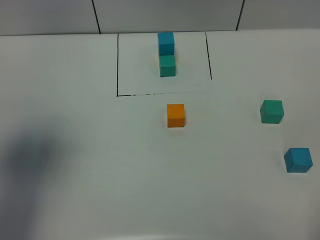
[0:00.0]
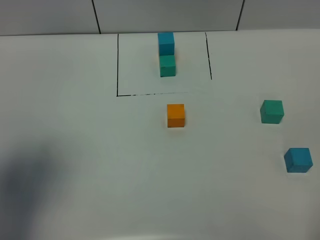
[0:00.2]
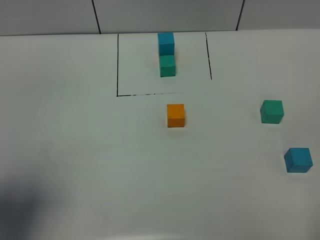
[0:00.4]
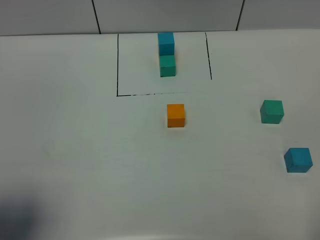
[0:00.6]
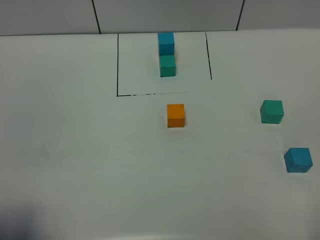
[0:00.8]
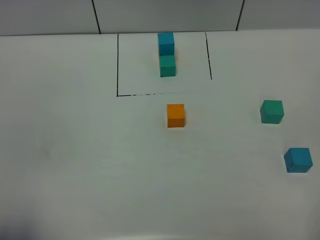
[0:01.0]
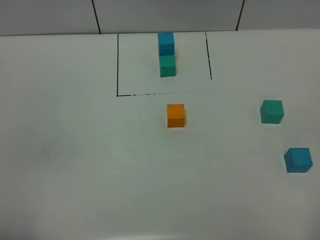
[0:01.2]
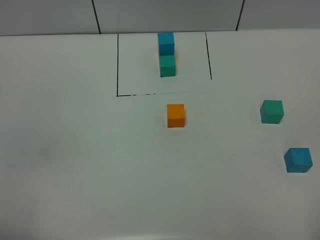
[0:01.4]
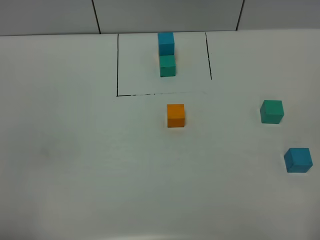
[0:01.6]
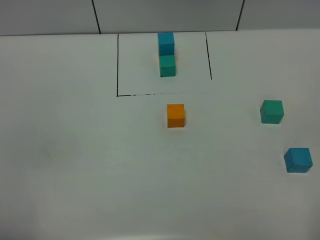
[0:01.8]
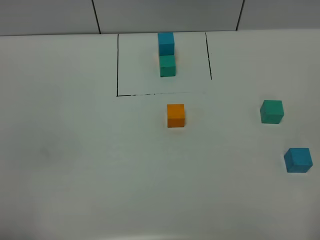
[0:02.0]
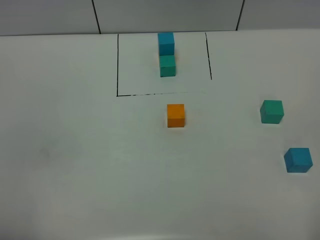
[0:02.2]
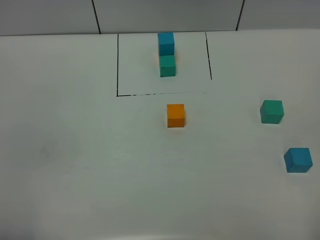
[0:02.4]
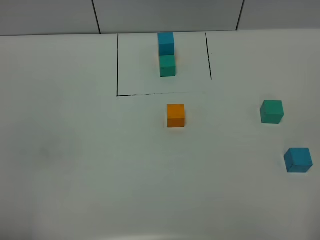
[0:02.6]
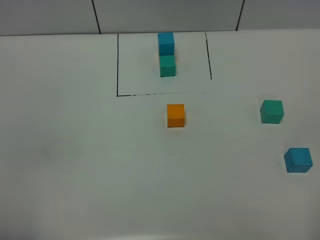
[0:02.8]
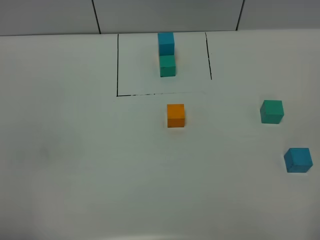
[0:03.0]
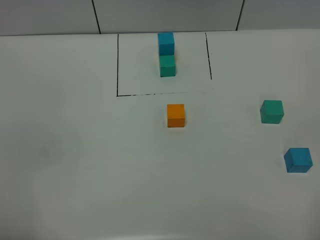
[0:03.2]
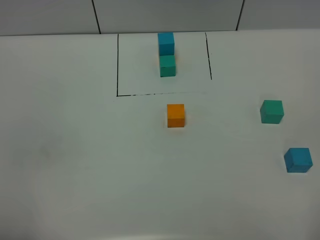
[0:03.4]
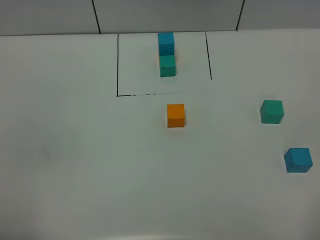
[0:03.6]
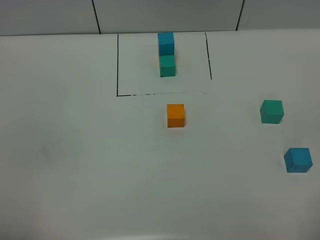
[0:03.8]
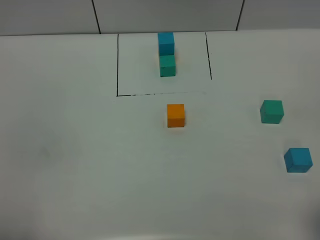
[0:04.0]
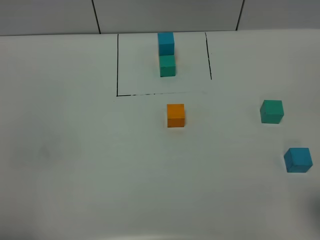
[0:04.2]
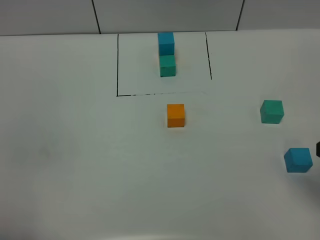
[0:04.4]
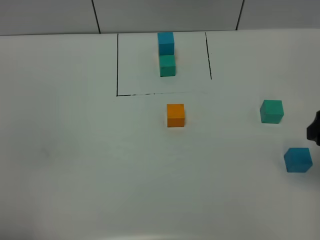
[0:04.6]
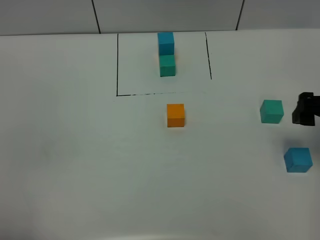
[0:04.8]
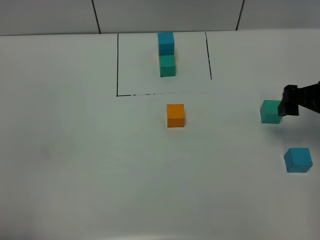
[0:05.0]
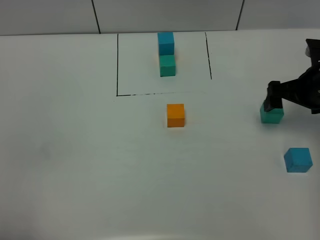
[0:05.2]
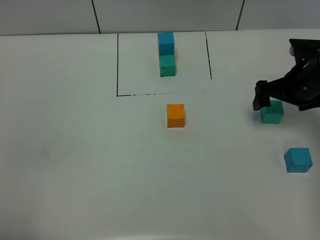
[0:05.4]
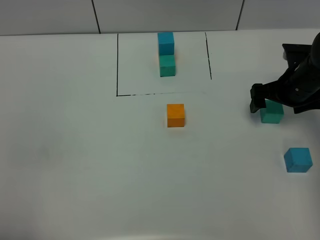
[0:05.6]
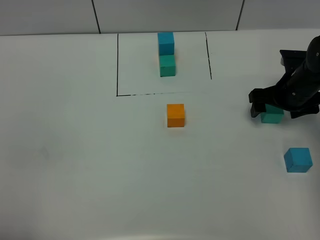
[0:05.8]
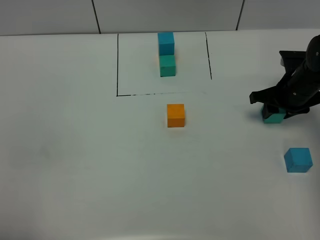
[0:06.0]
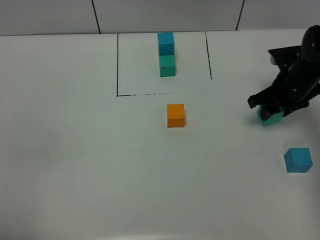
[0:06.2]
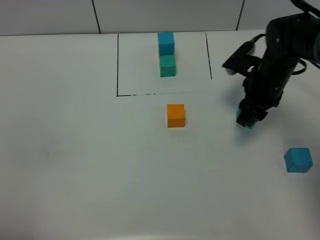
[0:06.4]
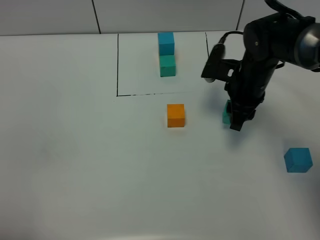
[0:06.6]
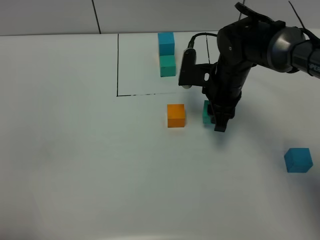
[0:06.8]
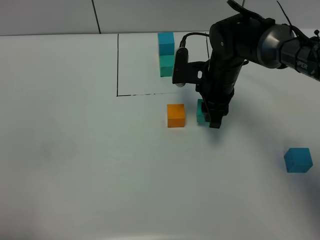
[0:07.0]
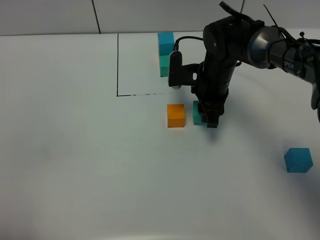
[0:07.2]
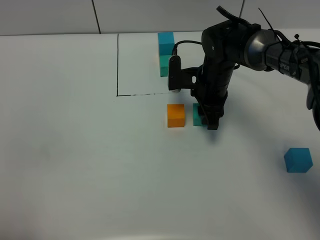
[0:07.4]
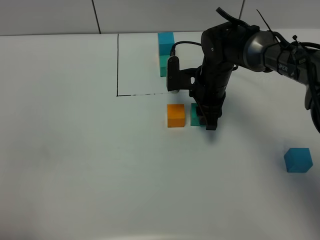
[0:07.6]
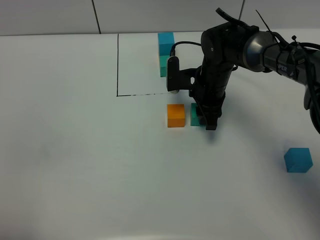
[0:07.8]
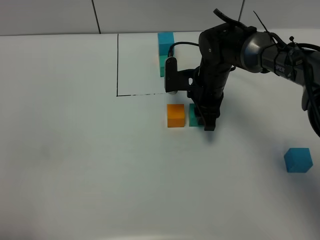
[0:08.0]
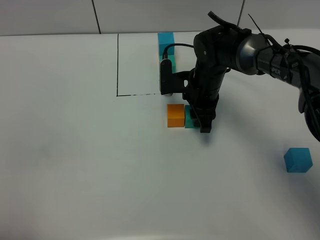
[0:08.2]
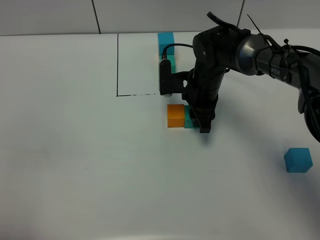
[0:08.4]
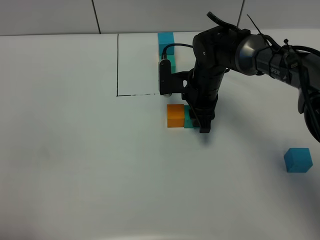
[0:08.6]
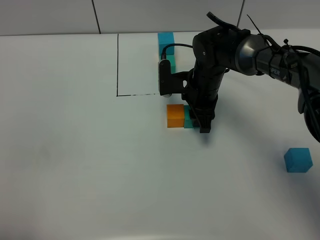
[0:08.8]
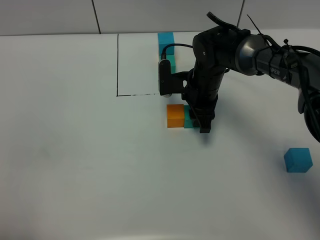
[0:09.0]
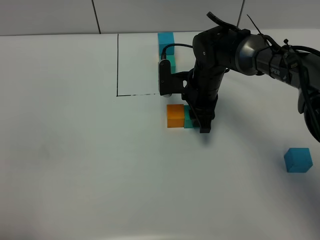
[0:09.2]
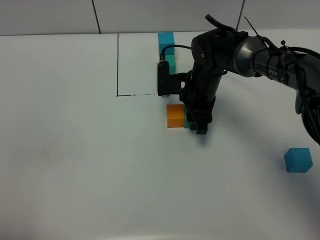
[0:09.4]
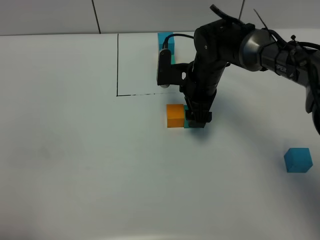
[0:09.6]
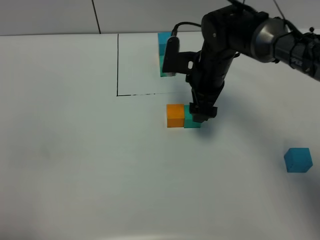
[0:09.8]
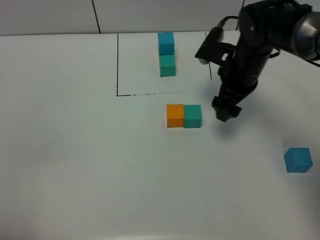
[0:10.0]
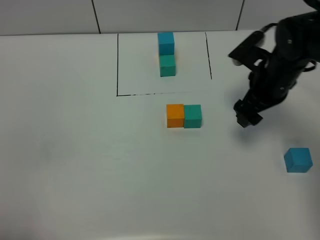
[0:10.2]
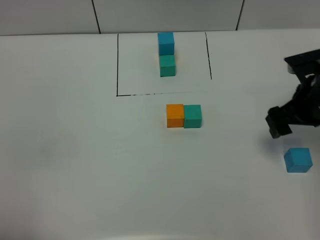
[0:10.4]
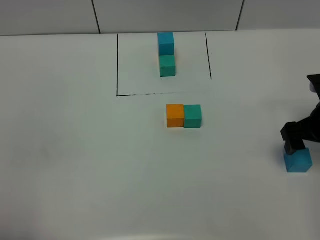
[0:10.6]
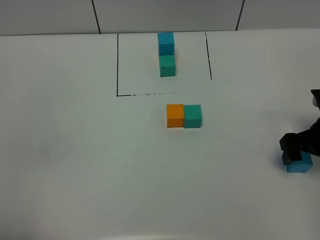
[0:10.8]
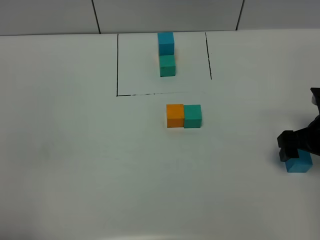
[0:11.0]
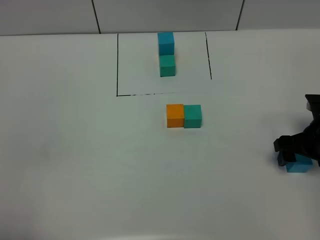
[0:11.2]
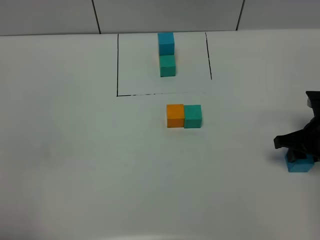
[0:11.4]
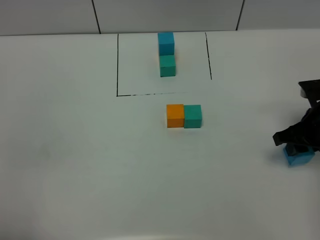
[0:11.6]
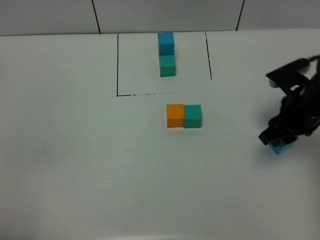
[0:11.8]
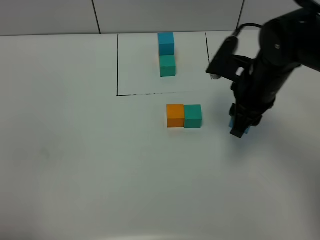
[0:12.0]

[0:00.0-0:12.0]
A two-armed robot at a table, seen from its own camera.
Task of the whole recording: According to the building block template in front, assemble the scattered blocks together.
Step, 0:00.0 to 0:09.6: Put the green build block on the right of the orange build block.
0:00.0 to 0:01.6: The left gripper shifts approximately 20 cm backward.
0:01.6 to 0:03.0: Neither gripper changes place.
0:03.0 to 0:04.4: The right gripper moves forward, roughly 15 cm, and opens.
0:04.4 to 0:06.0: The right gripper shifts approximately 25 cm forward and downward, and closes.
0:06.0 to 0:07.6: The right gripper is displaced to the left by some 15 cm.
0:07.6 to 0:09.0: There are only small adjustments of the grippers.
0:09.0 to 0:10.4: The right gripper moves to the right and backward, approximately 20 cm, and opens.
0:10.4 to 0:12.0: The right gripper travels to the left by about 15 cm, and closes its fingers.

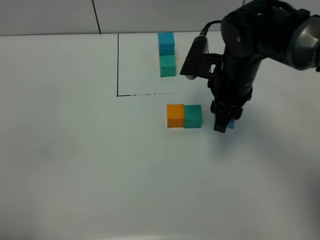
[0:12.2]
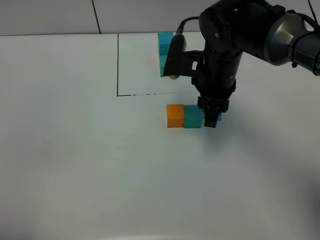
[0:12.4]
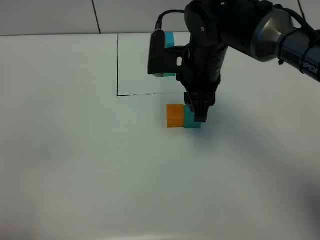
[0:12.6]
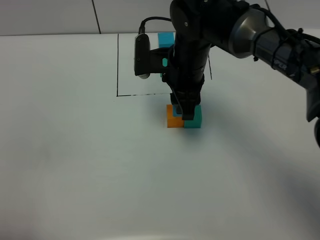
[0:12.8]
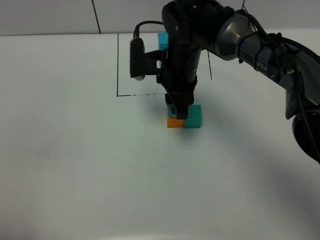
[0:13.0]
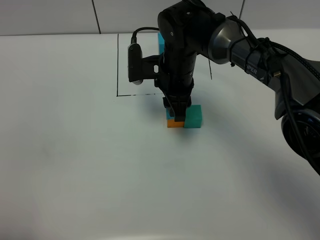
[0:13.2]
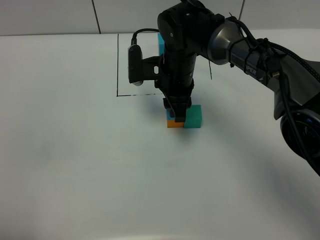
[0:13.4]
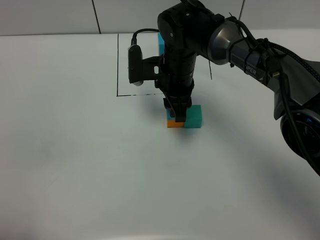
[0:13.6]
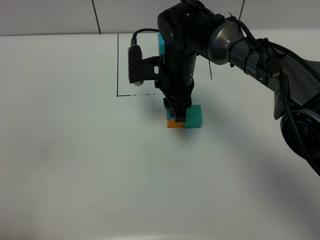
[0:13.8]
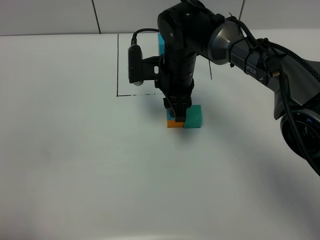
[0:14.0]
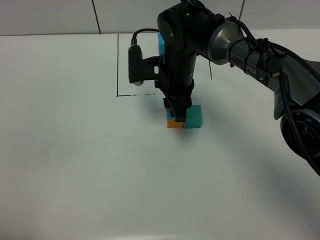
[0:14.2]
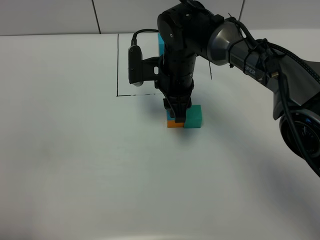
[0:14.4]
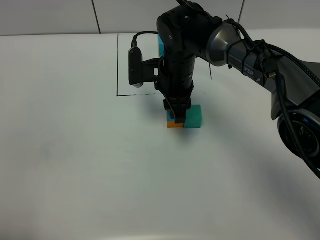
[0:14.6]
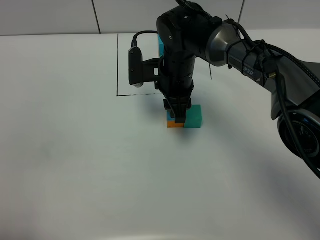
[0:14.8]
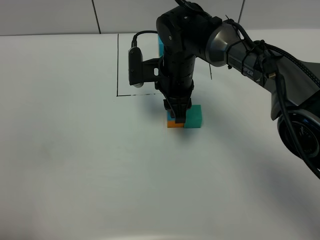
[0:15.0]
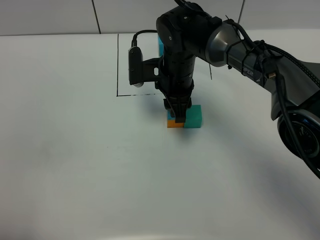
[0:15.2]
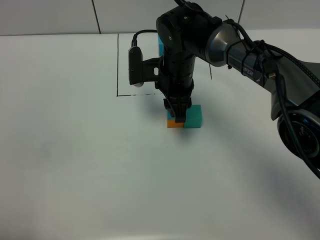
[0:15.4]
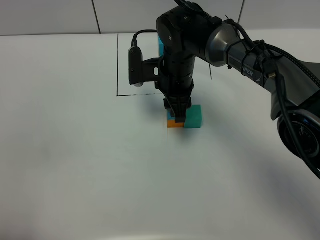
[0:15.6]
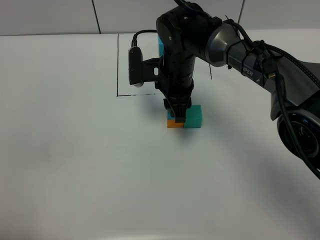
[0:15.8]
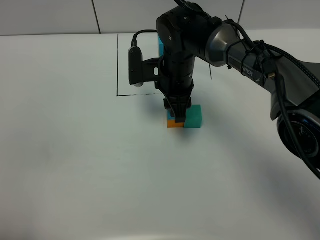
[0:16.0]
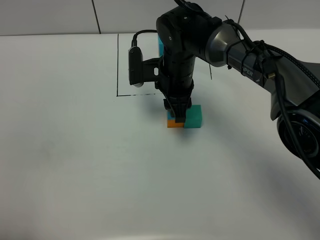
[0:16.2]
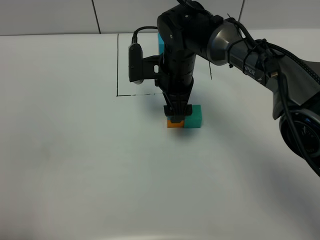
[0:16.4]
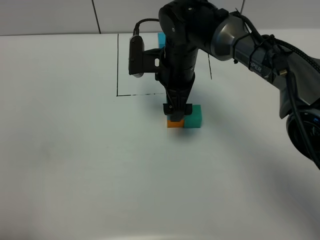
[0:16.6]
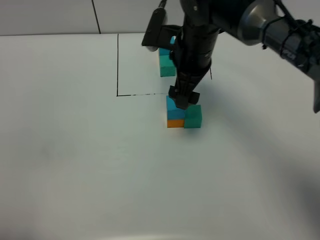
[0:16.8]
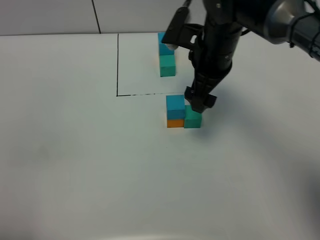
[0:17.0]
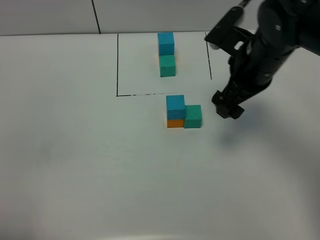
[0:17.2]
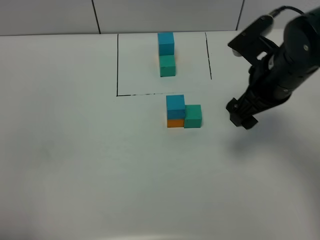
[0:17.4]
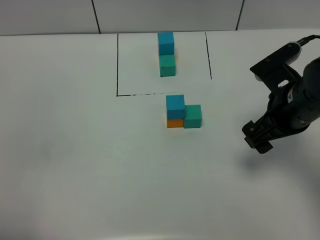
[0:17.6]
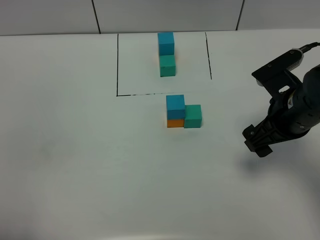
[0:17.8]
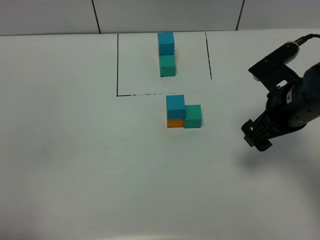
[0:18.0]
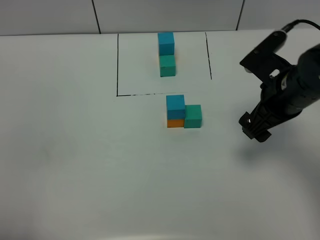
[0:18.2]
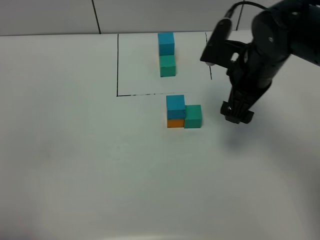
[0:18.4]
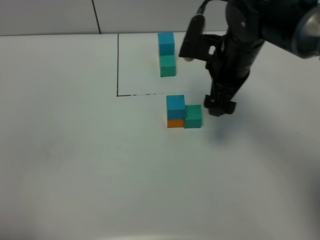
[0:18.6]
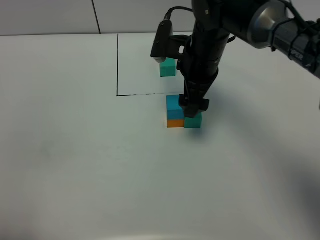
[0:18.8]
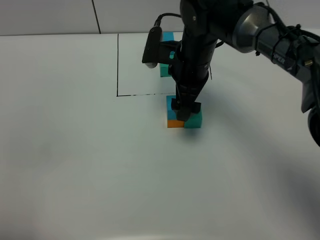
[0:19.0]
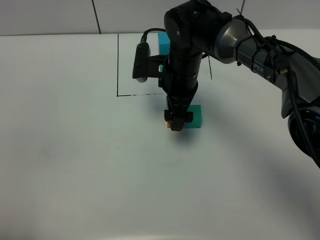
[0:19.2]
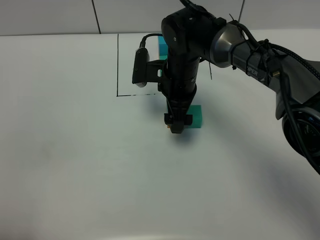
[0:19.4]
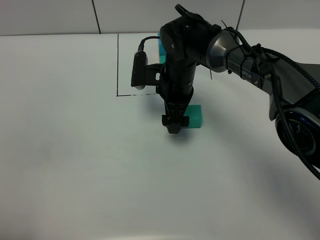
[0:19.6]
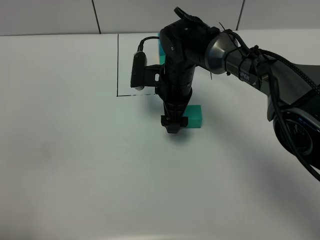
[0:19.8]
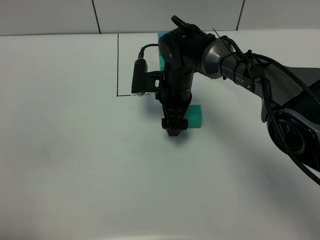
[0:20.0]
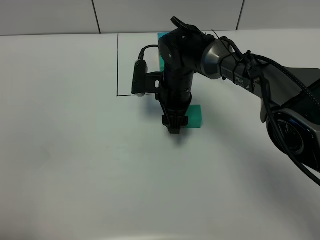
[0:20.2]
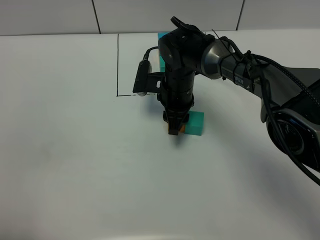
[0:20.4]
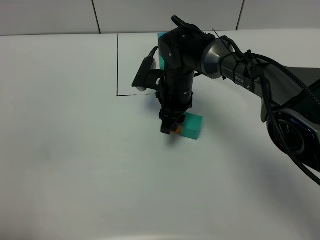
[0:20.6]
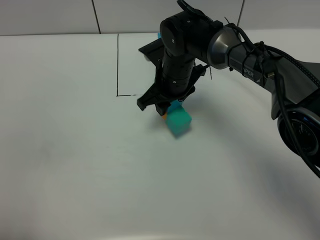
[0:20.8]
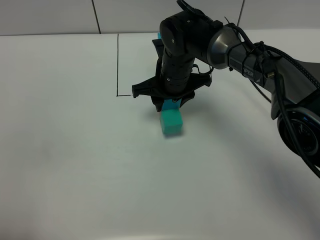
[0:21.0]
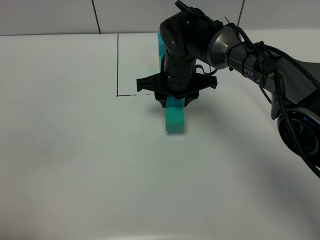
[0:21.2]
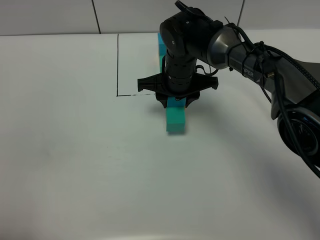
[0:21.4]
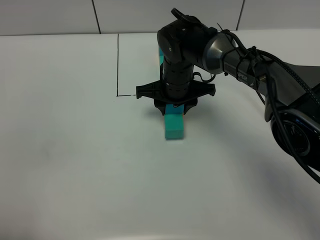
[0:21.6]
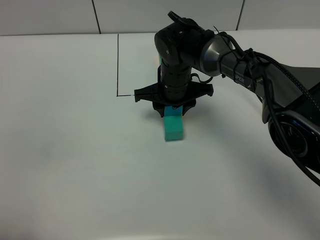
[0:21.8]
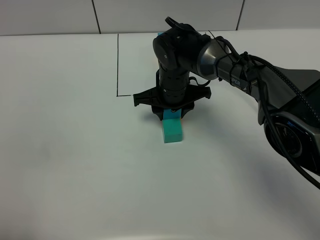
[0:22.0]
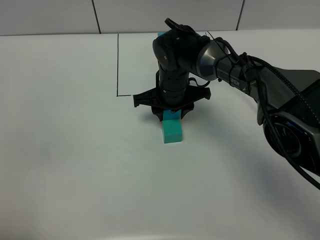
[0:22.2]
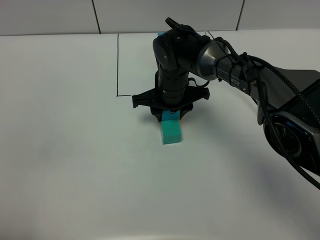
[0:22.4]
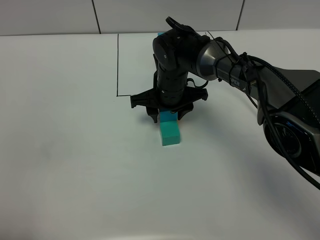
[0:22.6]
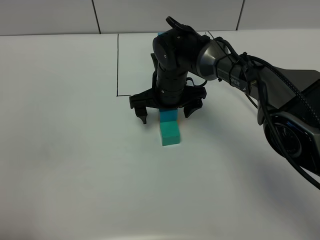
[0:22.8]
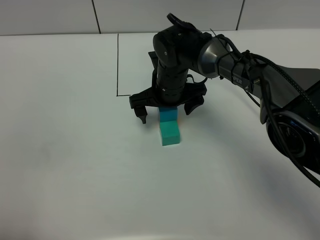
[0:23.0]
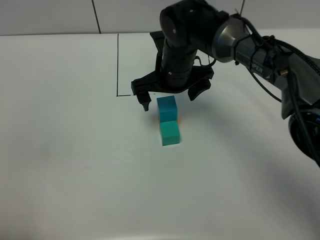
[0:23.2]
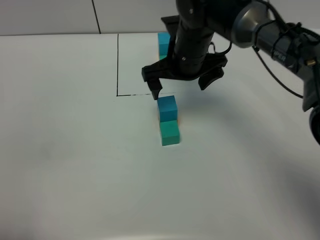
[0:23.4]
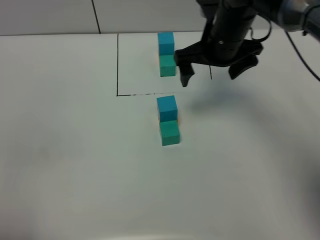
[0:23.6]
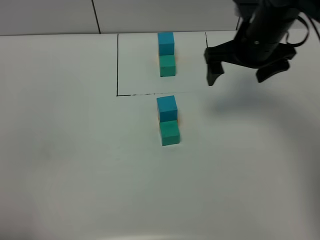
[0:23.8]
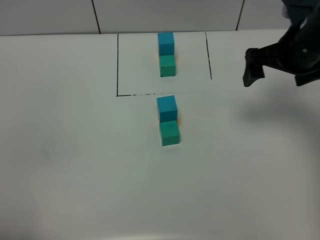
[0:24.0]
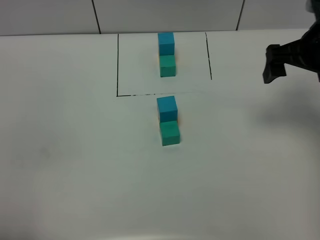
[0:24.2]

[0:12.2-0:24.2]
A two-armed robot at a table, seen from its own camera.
Task of the whole recording: According to the building block template in front, assemble the scattered blocks together.
Step, 0:12.2 to 0:16.4: Put the blue build block on the orange build block.
Step, 0:16.6 to 0:22.2: move the build block to the center of the table.
0:12.2 to 0:13.8: The right gripper travels to the left by roughly 10 cm.
0:13.8 to 0:15.2: The two grippers keep their place.
0:15.2 to 0:16.6: The right gripper opens its fingers.
0:16.6 to 0:18.2: The right gripper goes approximately 20 cm to the right and backward.
0:18.2 to 0:19.8: The right gripper heads to the left, forward and downward, covering roughly 20 cm.
0:19.8 to 0:21.2: The right gripper closes.
0:21.2 to 0:22.6: The grippers stay close to where they were, moving slightly.
0:22.6 to 0:24.2: The right gripper moves to the right and upward, some 30 cm, and opens up.
